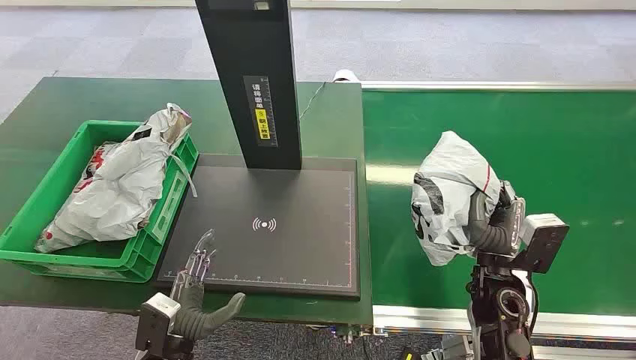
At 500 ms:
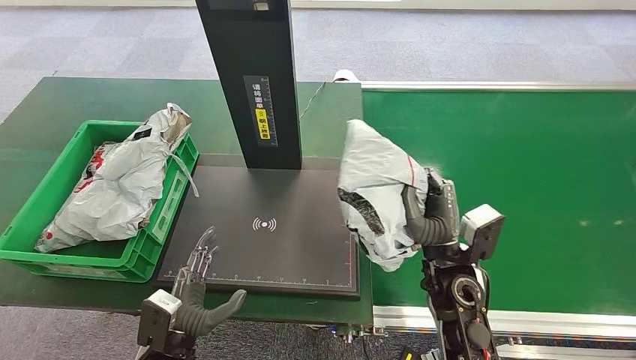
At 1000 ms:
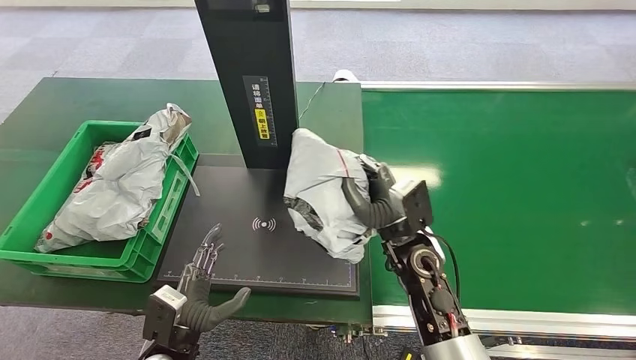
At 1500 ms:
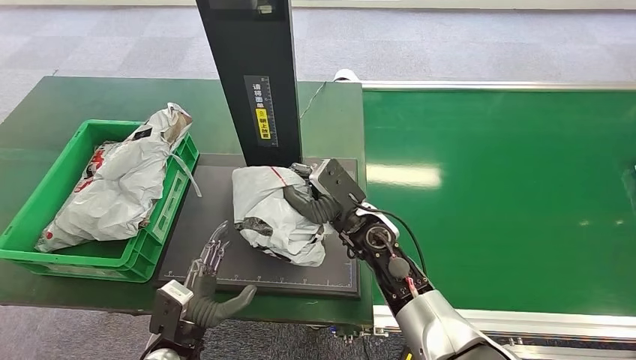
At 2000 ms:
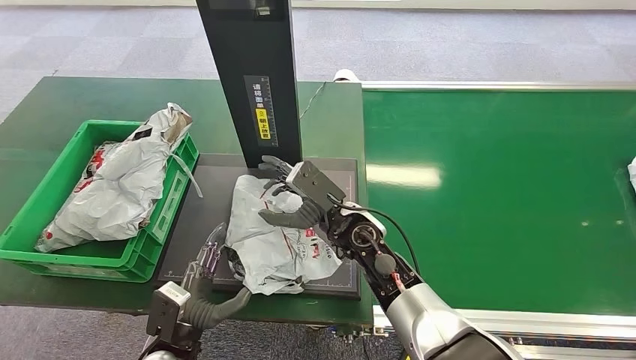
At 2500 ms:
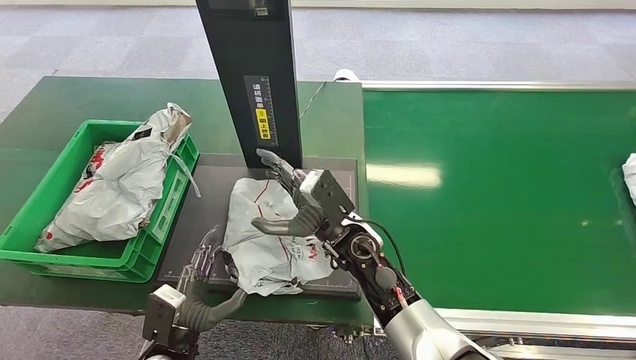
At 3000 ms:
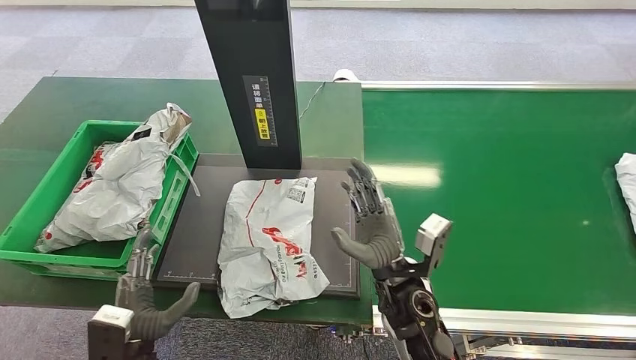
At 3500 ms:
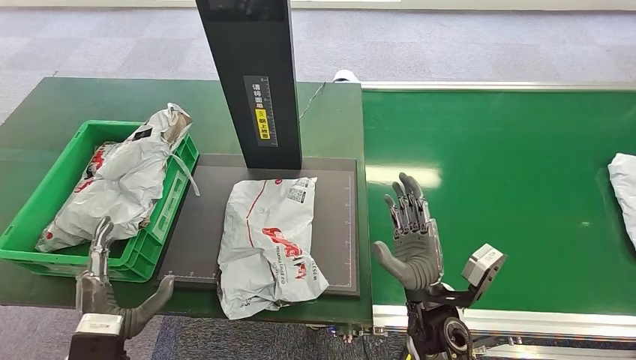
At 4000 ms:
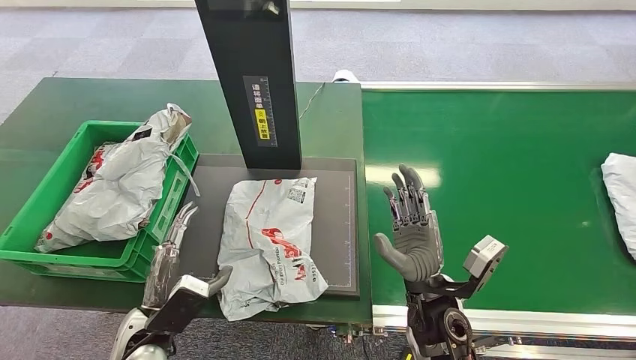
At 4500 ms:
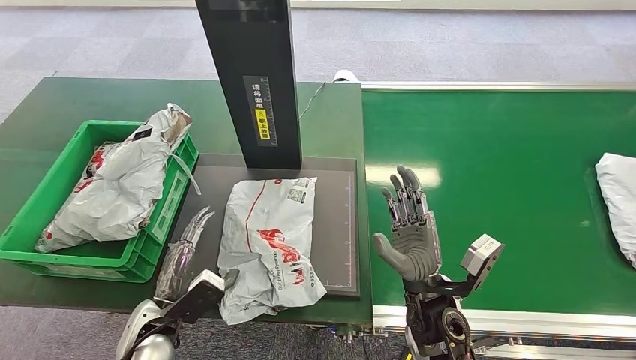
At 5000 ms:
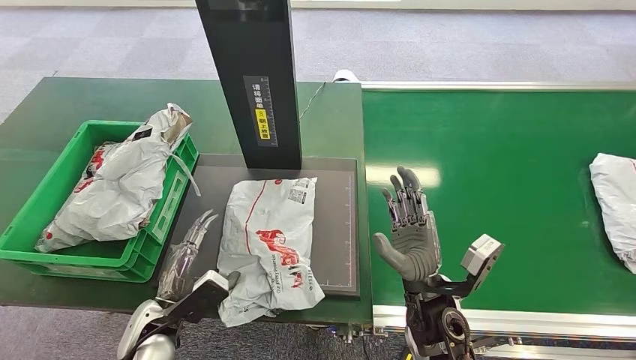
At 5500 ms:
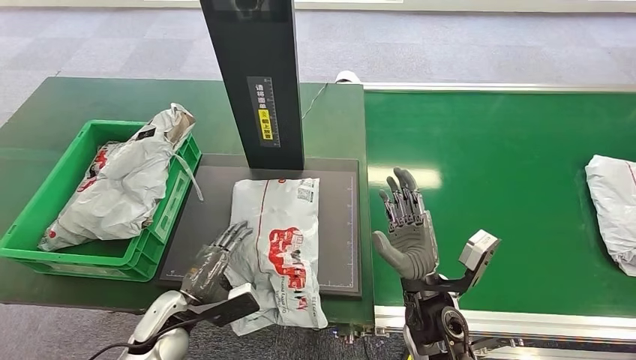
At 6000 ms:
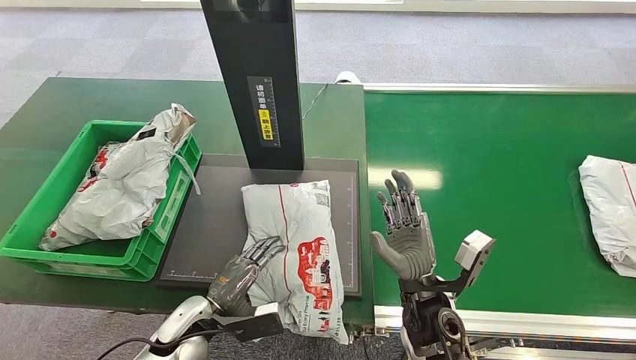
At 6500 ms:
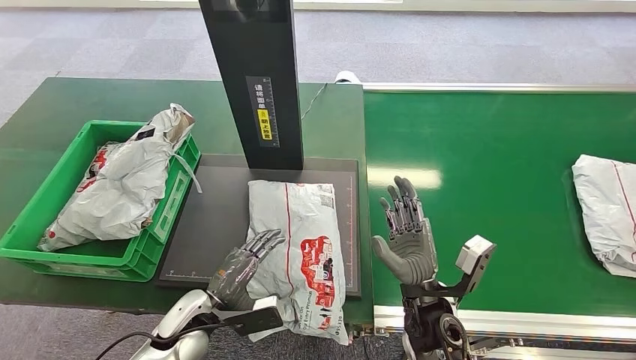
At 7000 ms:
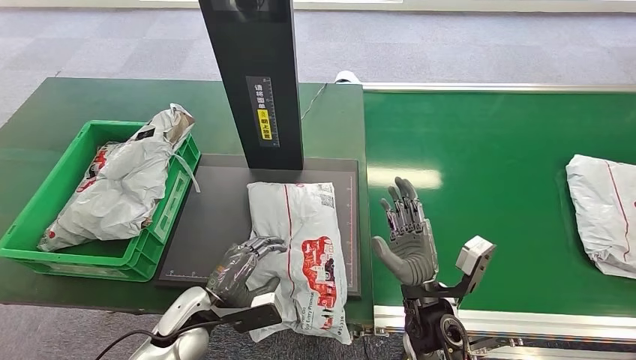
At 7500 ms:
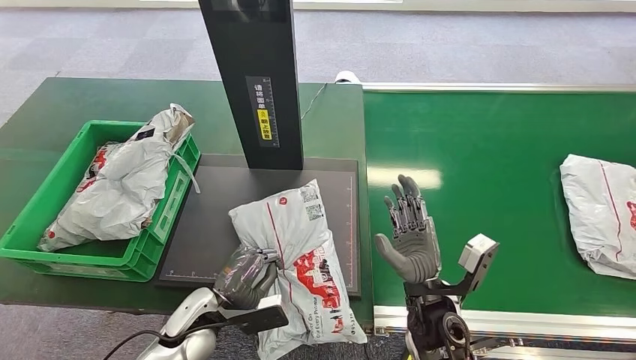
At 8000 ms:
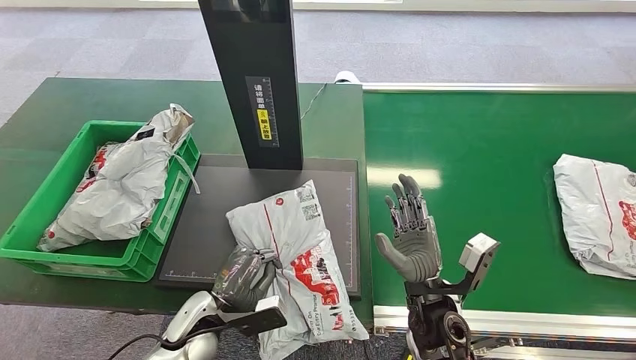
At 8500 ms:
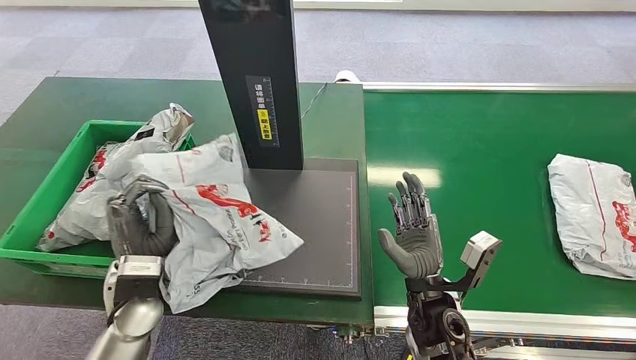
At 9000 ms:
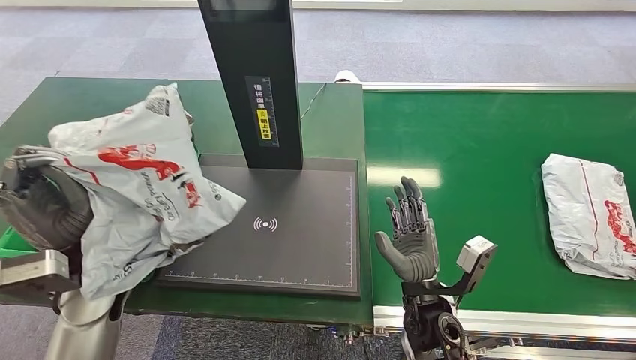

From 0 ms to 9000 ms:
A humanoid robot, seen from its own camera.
Task of the whole recording: Weigh the package on the weighing device and place it in the left basket.
From 2000 ms to 4500 ms: The right hand is displaced backward and to the right by approximately 15 cm.

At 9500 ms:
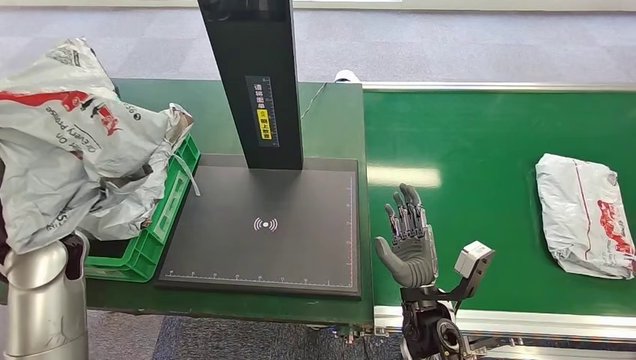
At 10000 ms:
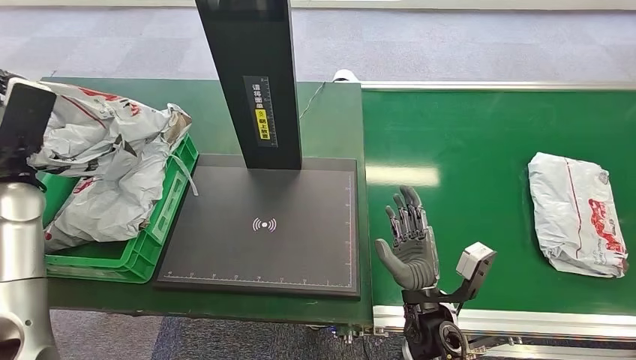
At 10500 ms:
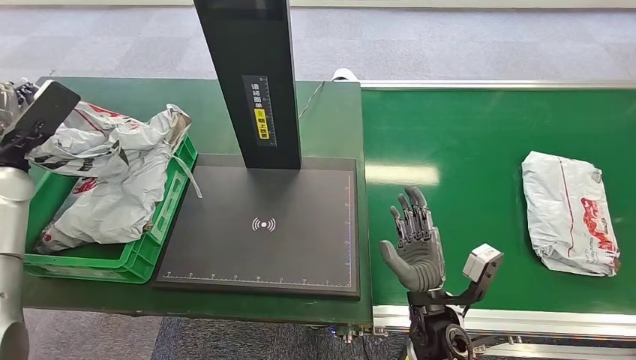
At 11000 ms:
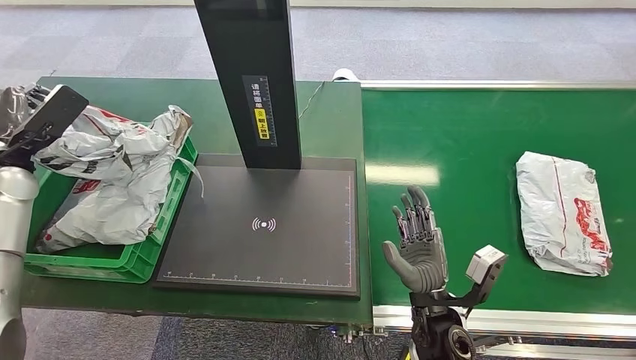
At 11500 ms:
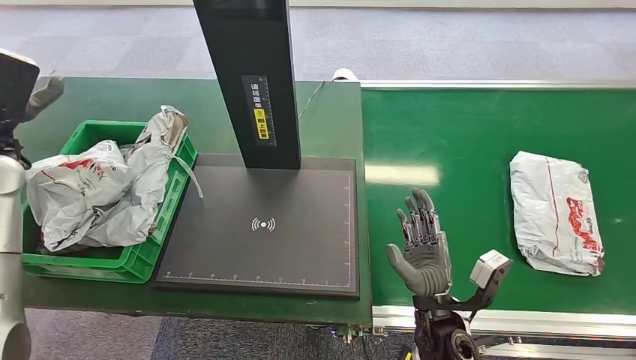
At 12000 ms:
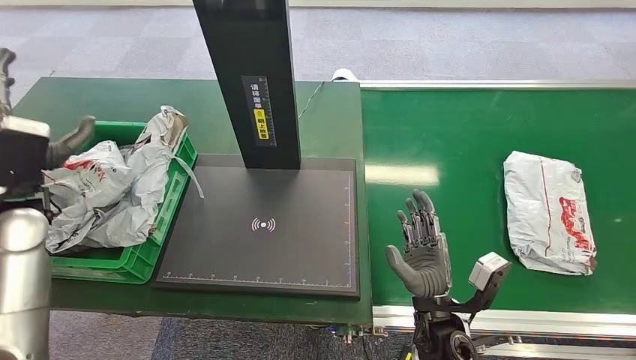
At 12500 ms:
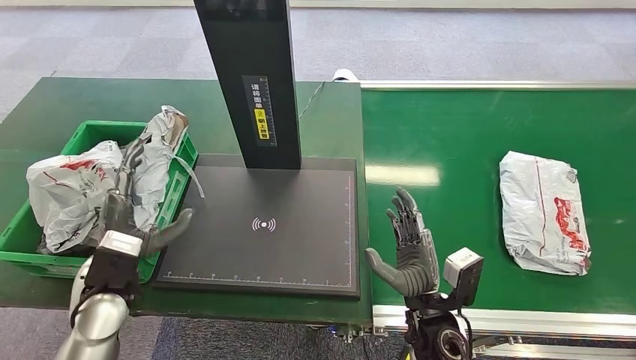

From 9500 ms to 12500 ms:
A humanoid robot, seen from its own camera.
Task of the whole recording: Weigh the package on the weighing device and place it in the left basket.
From 11000 ms to 12500 ms: The left hand moves to the right, backward and downward, roughly 25 cm.
